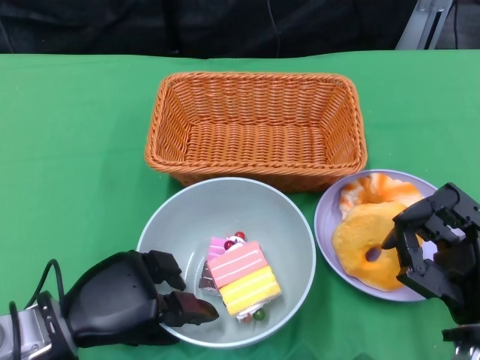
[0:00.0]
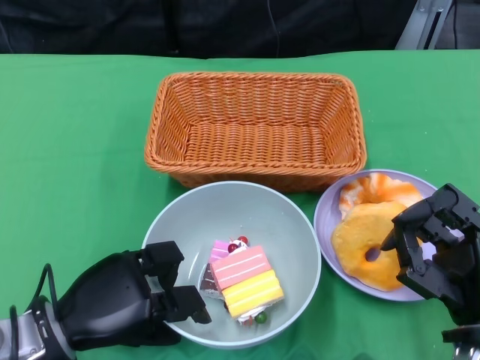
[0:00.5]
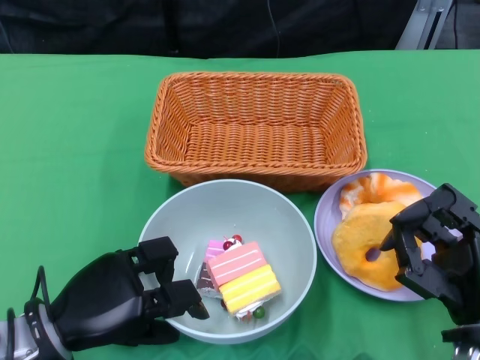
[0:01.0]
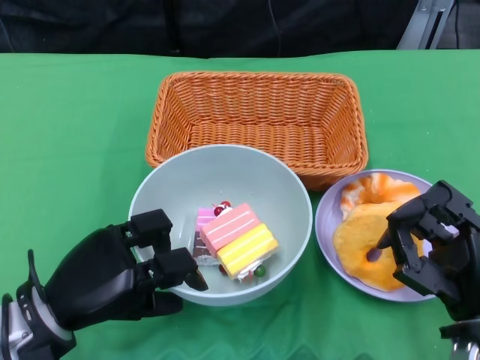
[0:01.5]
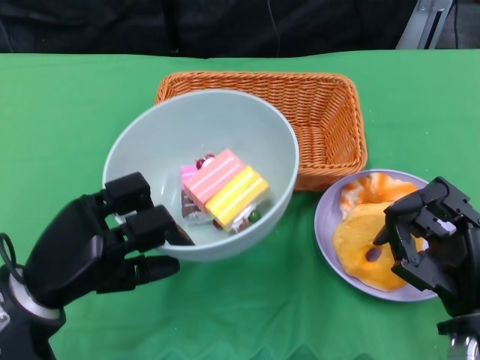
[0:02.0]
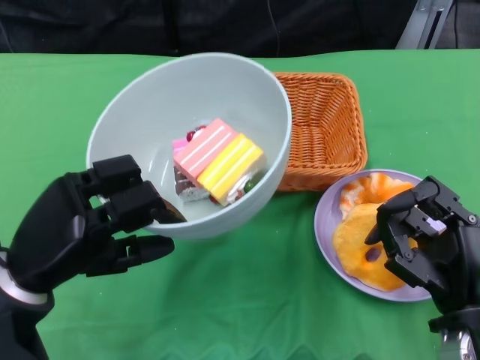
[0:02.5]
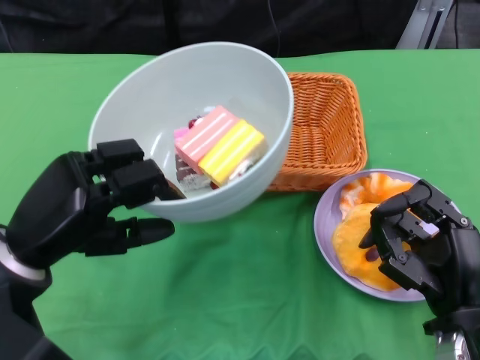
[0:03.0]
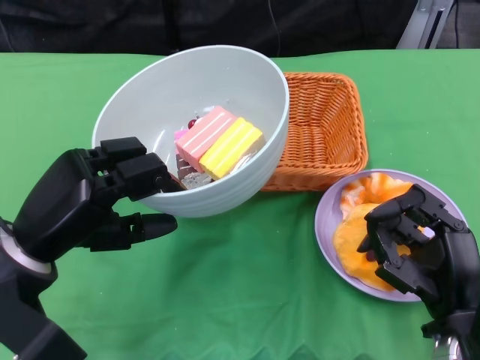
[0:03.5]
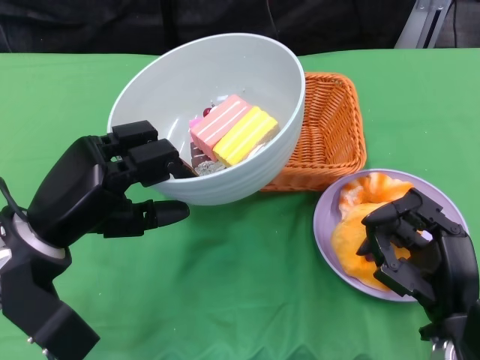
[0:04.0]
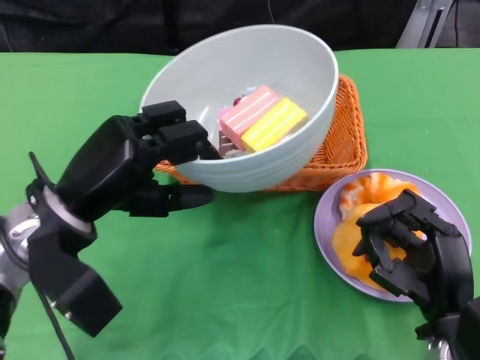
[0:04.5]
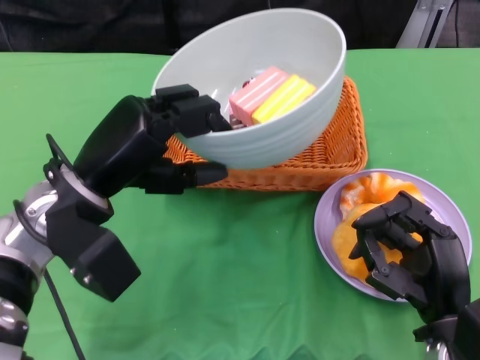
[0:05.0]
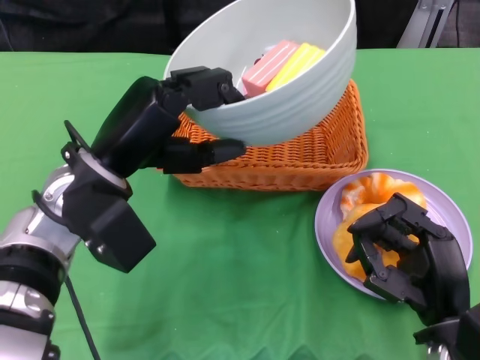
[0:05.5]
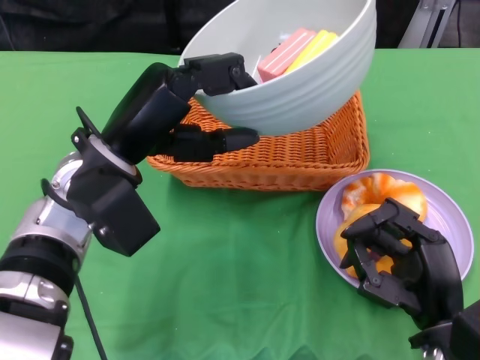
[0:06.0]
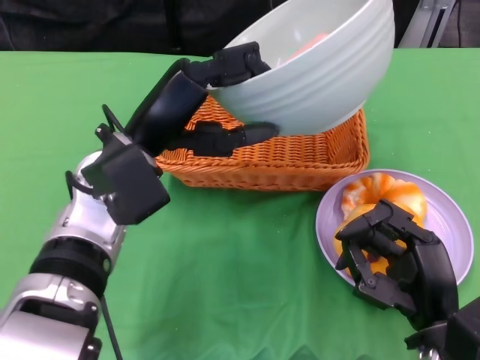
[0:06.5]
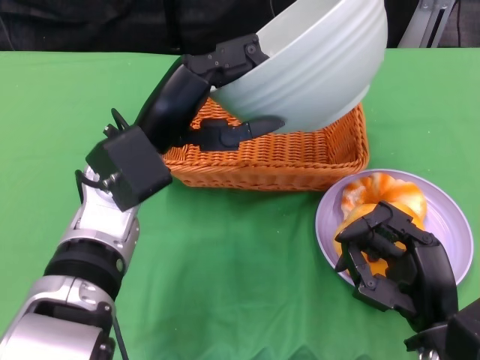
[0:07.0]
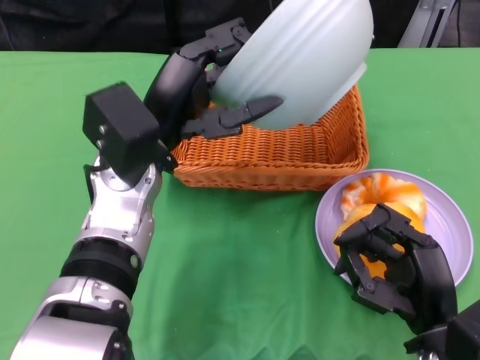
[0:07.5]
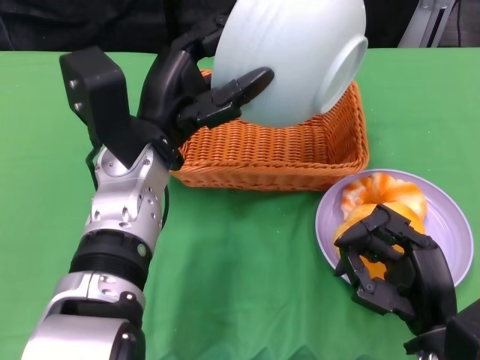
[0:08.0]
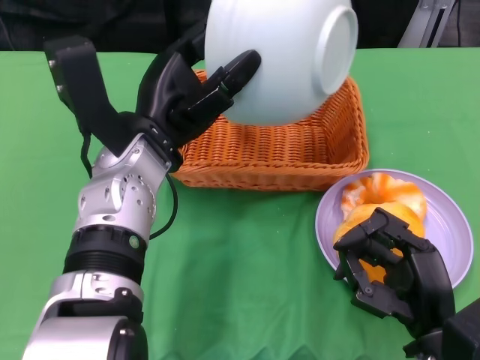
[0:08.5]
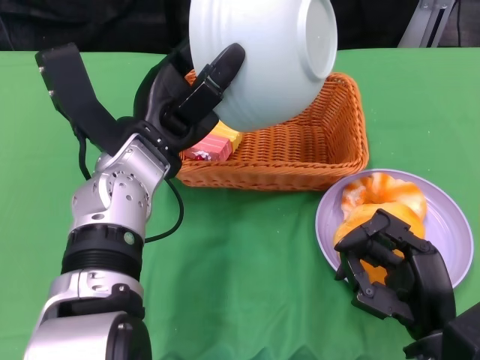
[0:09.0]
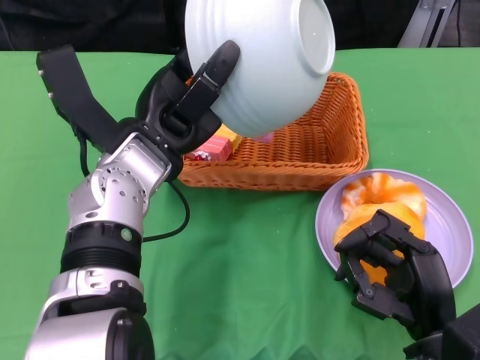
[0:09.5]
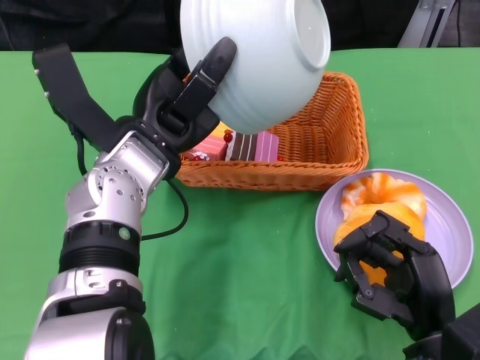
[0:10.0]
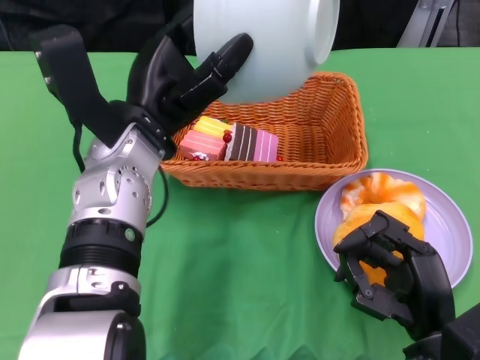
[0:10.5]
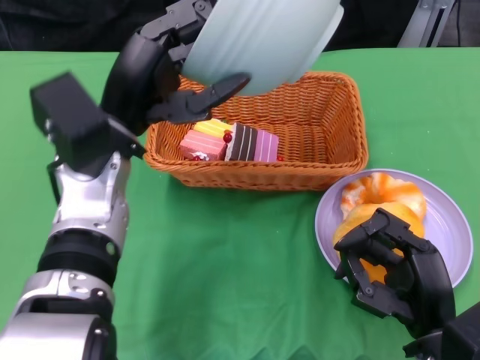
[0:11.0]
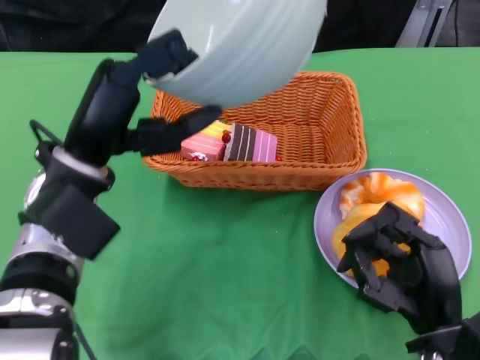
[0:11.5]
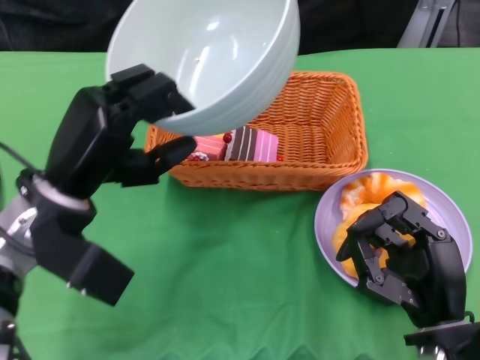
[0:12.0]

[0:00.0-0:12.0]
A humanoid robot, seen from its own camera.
Step, 0:00.5 to 0:10.0: Pour the cake into the basket with the left gripper.
0:02.0 to 0:04.0: The left hand changes place by some 5 cm.
0:04.0 to 0:06.0: The left hand is displaced to the right by approximately 5 cm.
0:10.0 to 0:12.0: The left hand shifts roughly 5 cm to the left.

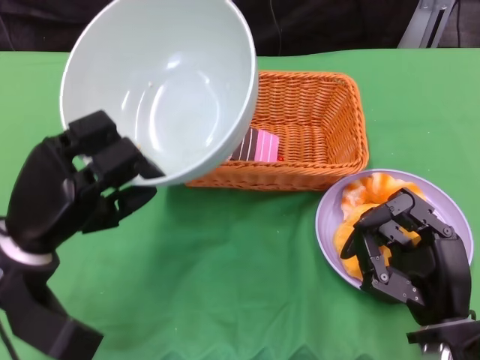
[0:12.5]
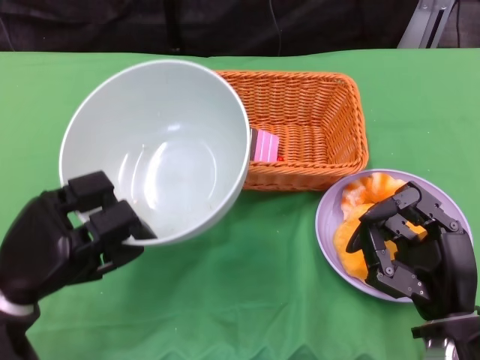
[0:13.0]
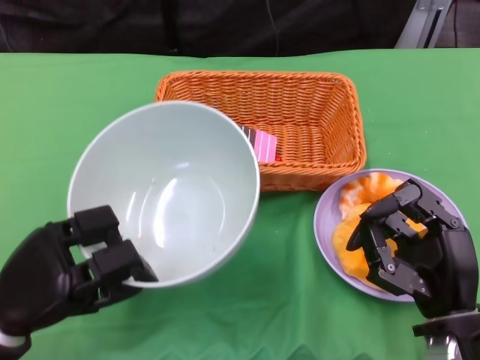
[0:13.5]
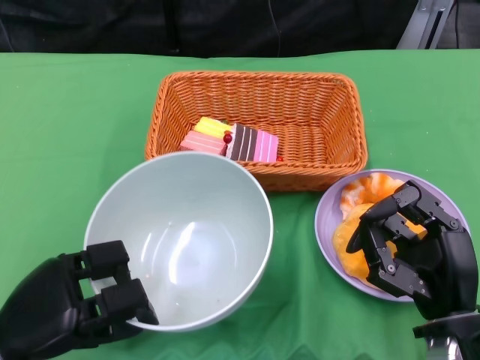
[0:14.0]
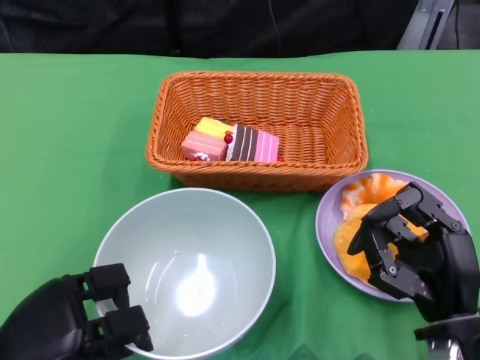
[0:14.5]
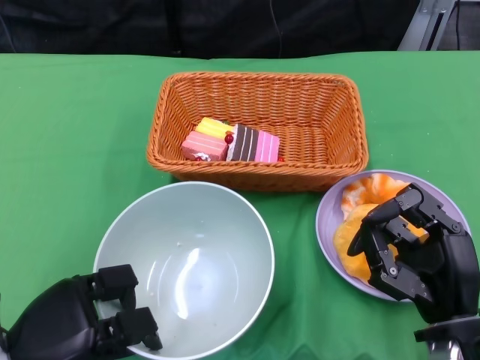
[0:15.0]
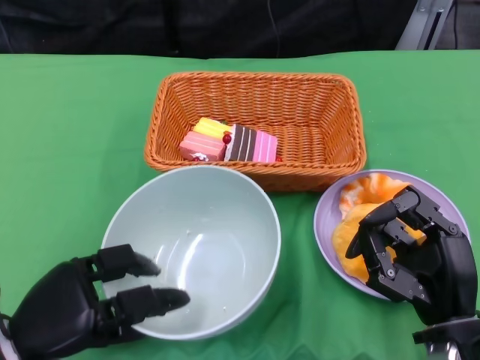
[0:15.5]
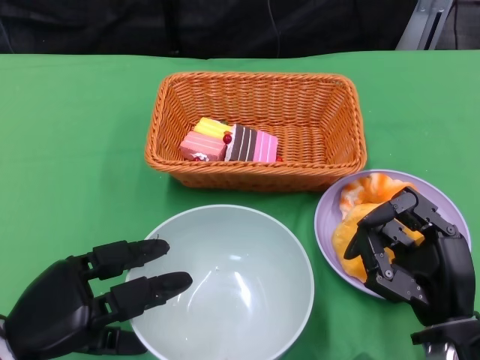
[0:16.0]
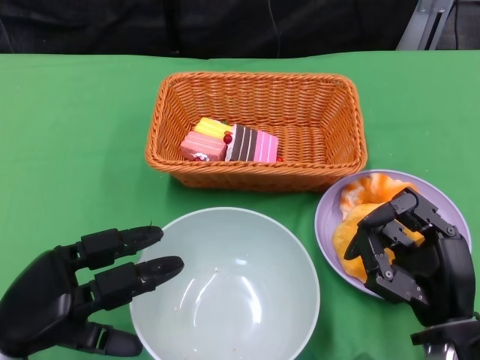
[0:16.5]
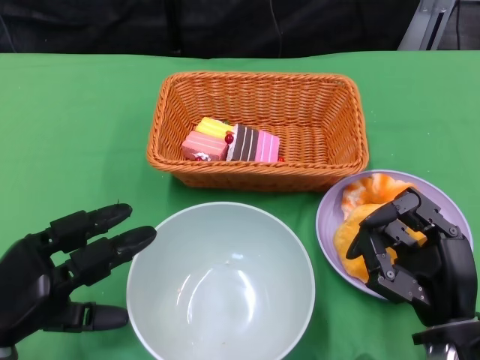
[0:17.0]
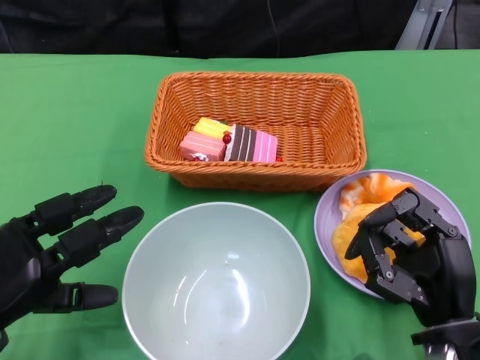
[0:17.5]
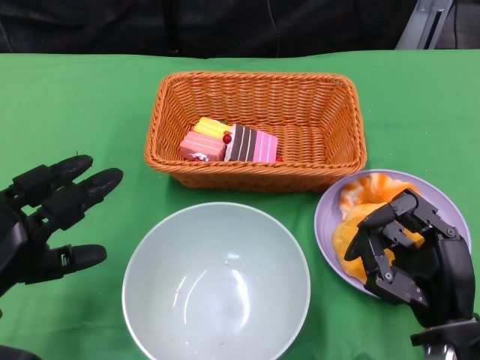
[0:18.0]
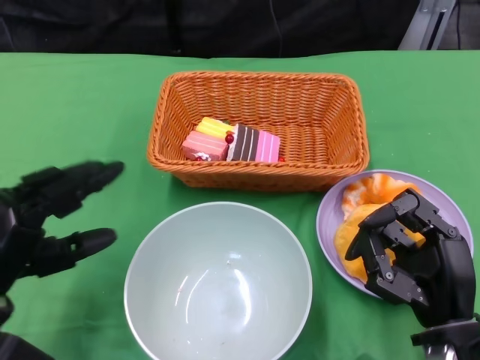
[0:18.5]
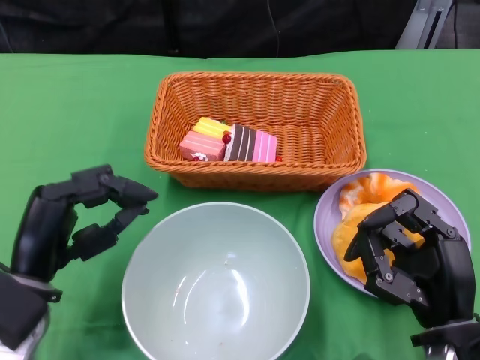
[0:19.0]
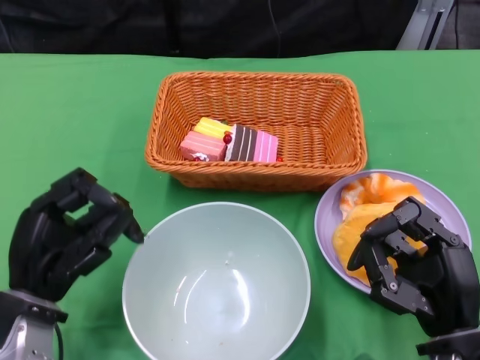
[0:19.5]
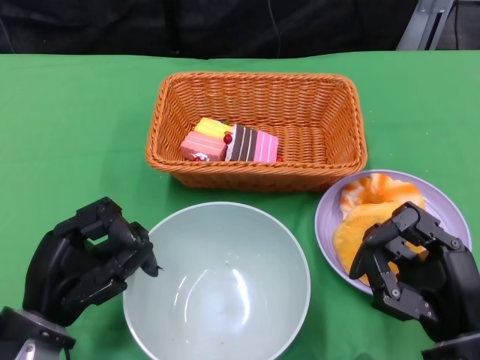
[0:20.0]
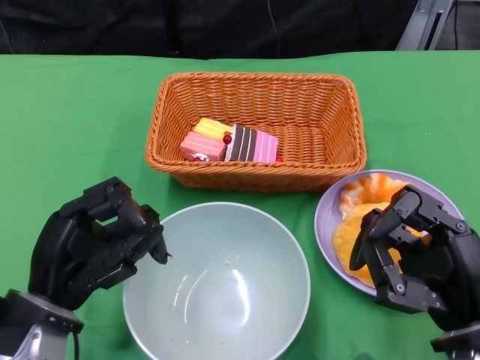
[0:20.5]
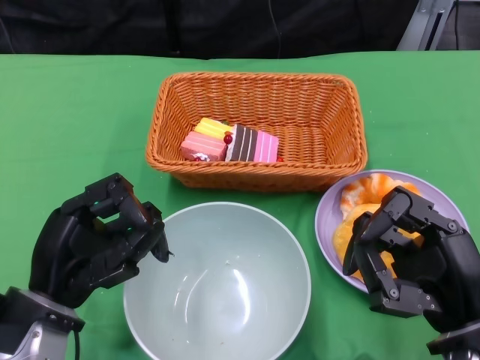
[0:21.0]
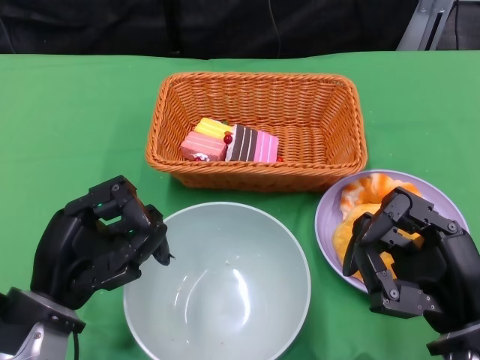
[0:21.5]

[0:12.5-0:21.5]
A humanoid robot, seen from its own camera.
Step, 0:12.5 to 0:16.0: Place the bowl on the table with the left gripper.
0:12.5 to 0:14.5: The left hand heads backward and downward, covering some 10 cm.
0:19.5 to 0:21.5: The hands stay close to where they were, moving slightly.

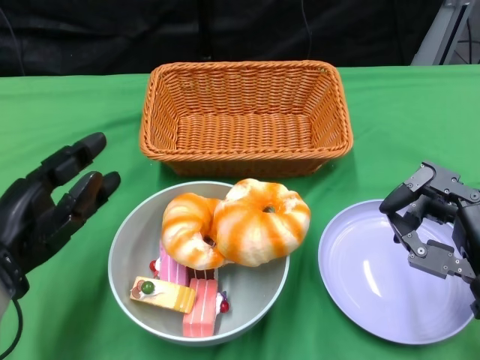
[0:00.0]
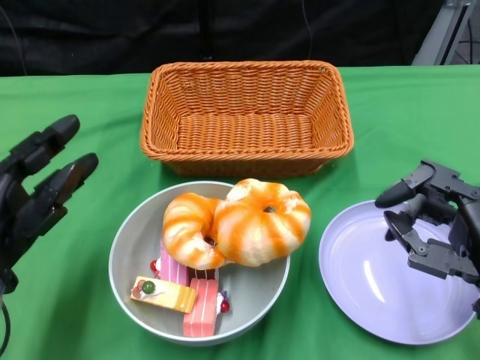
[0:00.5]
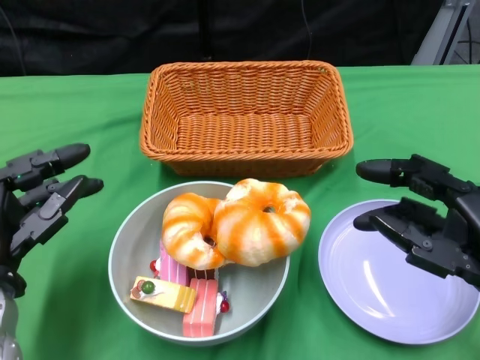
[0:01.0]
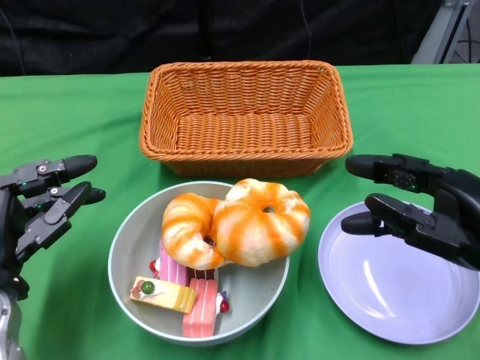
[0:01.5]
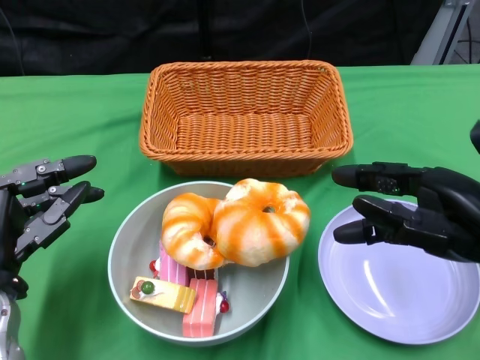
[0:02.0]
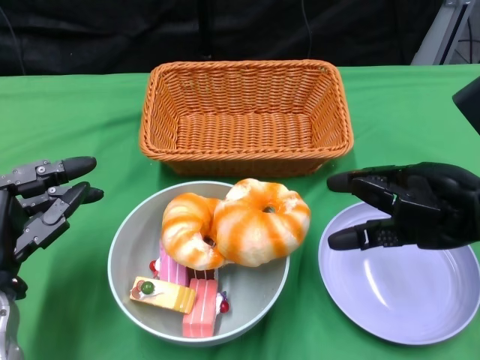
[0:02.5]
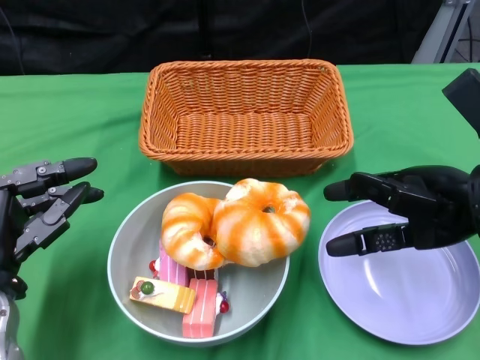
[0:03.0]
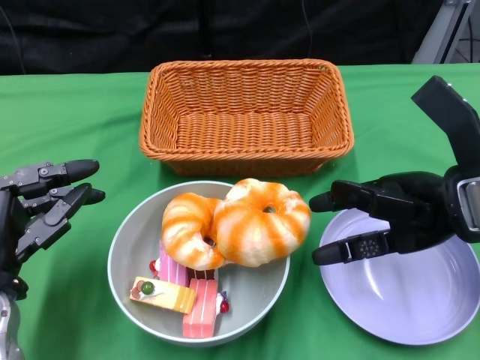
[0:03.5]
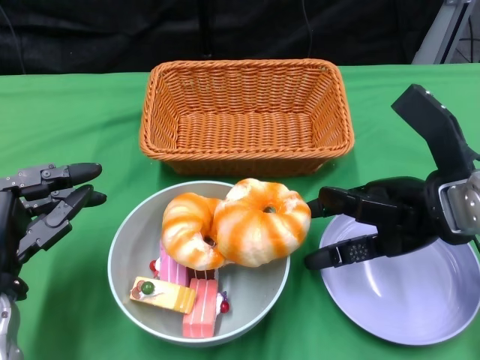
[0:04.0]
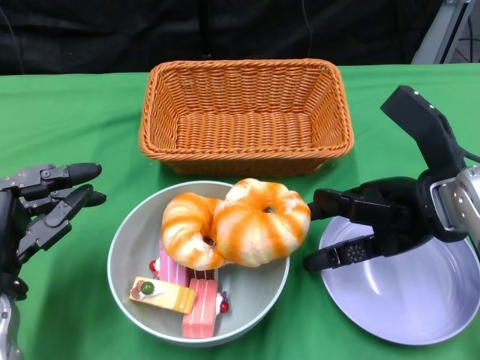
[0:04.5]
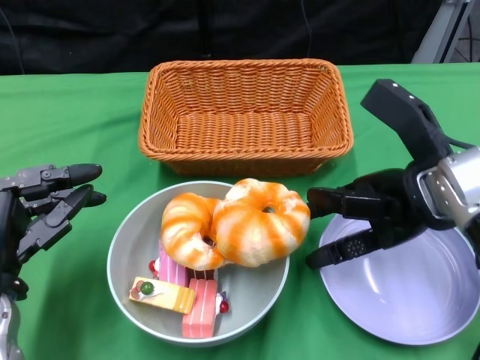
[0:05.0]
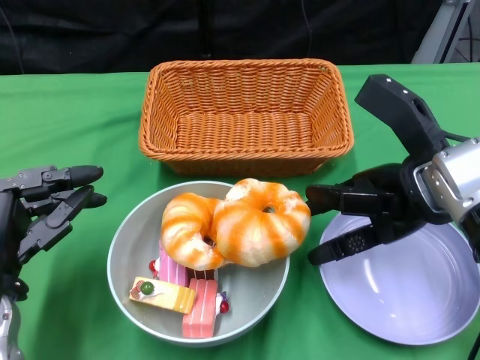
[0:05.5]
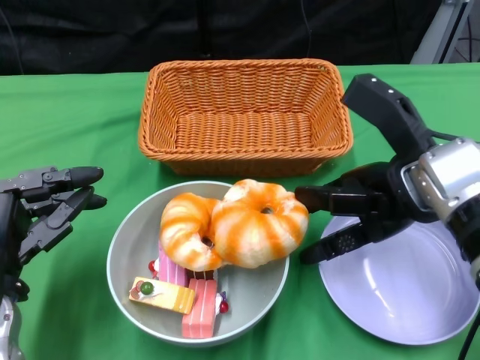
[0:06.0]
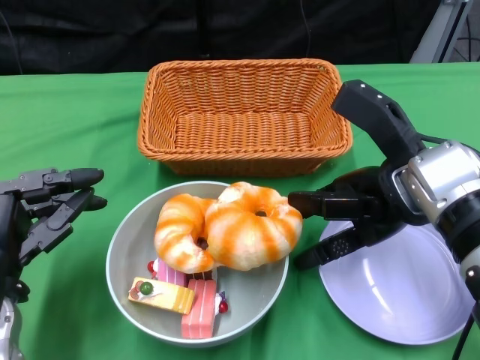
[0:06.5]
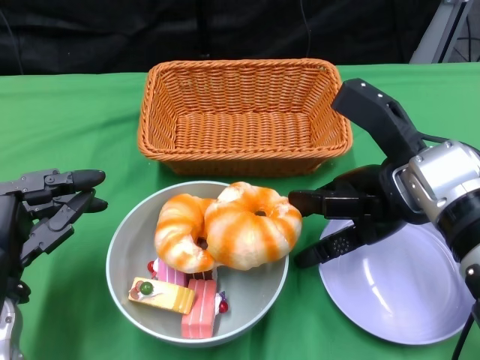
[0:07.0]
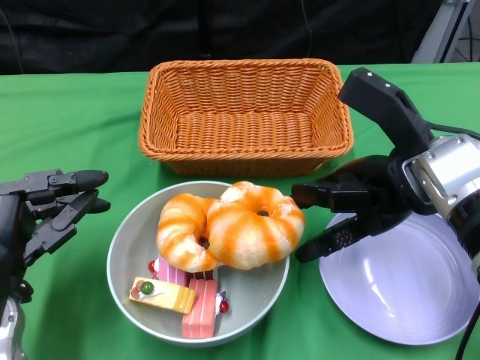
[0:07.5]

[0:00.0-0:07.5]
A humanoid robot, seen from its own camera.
0:00.0 to 0:02.0: The right hand is displaced upward by roughly 5 cm.
0:02.0 to 0:04.0: The right hand heads forward, covering some 10 cm.
0:04.0 to 0:07.5: The hands move only a little.
